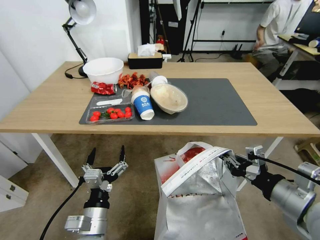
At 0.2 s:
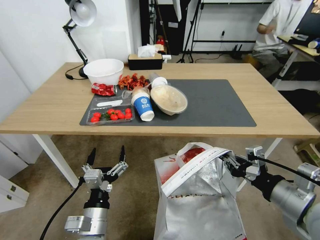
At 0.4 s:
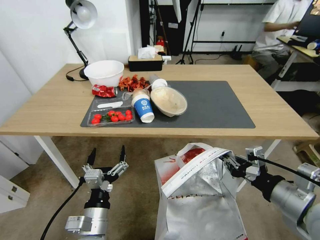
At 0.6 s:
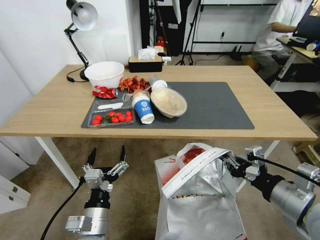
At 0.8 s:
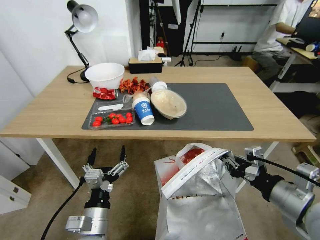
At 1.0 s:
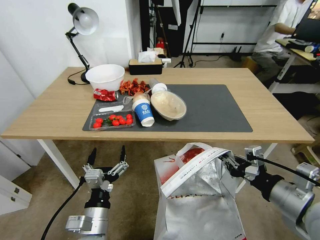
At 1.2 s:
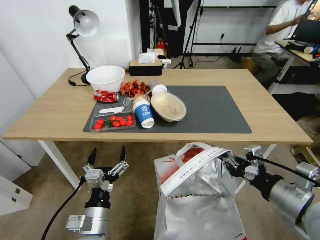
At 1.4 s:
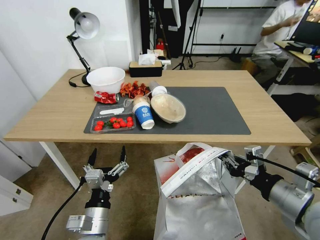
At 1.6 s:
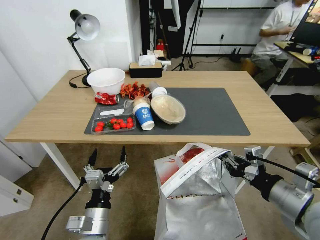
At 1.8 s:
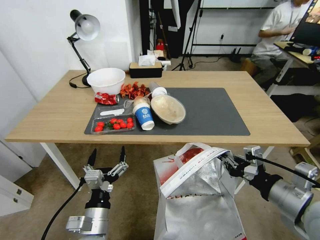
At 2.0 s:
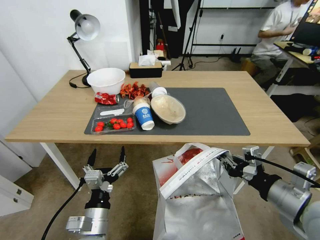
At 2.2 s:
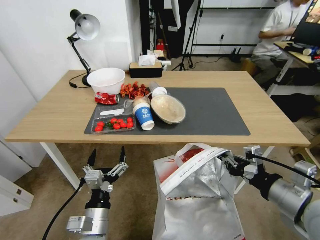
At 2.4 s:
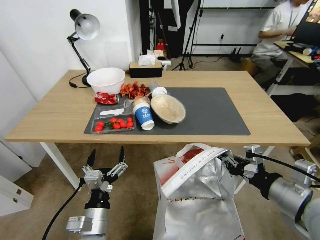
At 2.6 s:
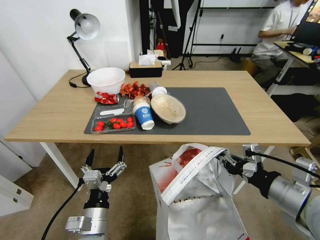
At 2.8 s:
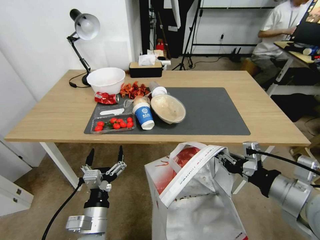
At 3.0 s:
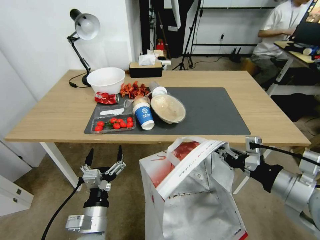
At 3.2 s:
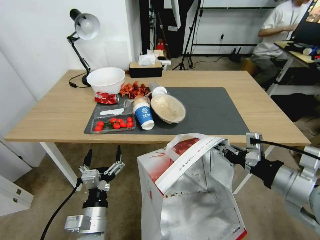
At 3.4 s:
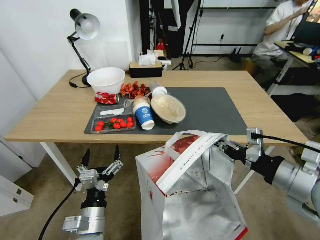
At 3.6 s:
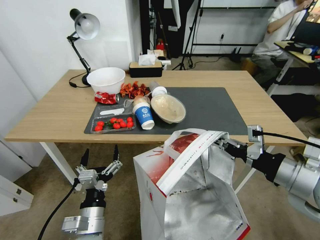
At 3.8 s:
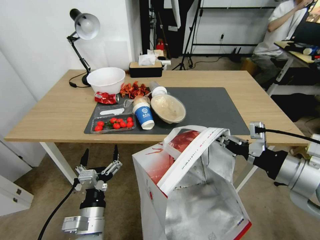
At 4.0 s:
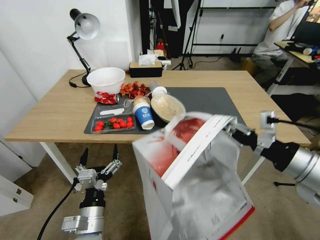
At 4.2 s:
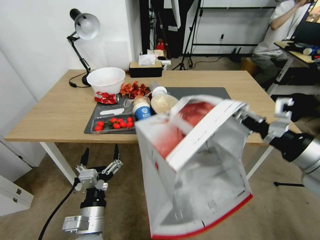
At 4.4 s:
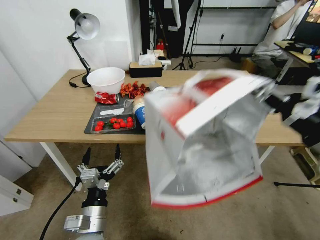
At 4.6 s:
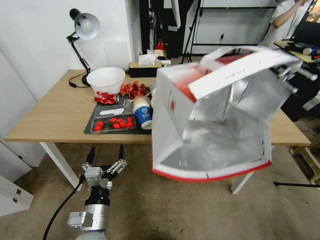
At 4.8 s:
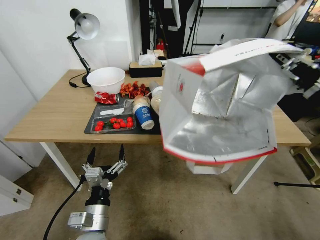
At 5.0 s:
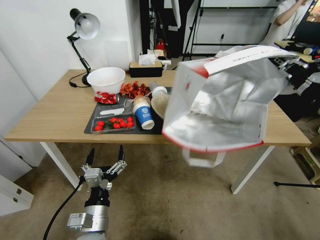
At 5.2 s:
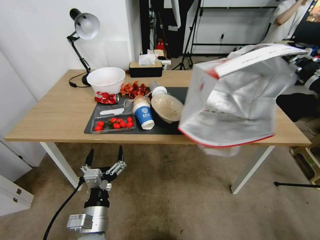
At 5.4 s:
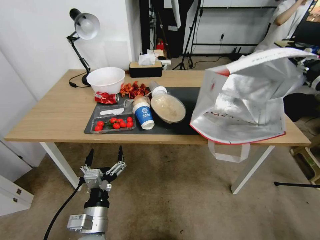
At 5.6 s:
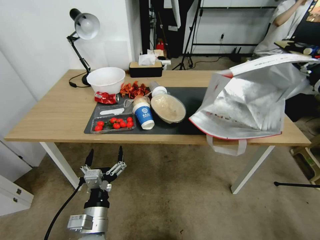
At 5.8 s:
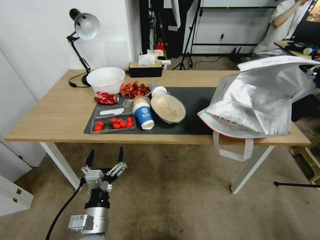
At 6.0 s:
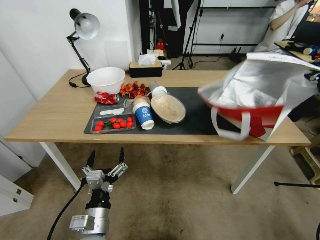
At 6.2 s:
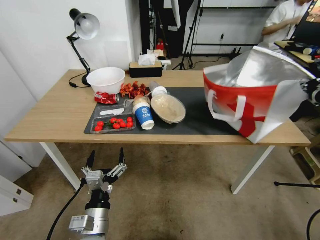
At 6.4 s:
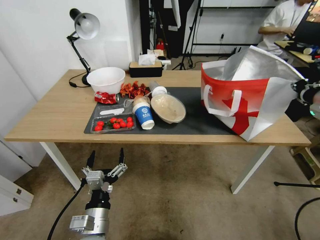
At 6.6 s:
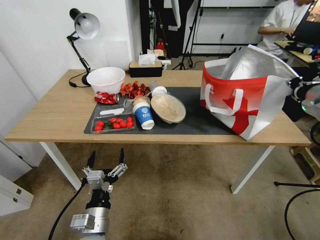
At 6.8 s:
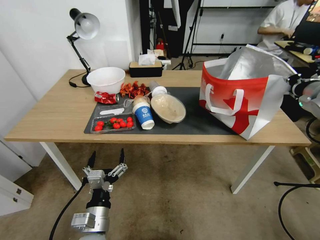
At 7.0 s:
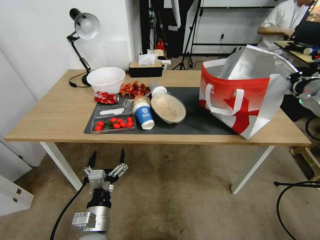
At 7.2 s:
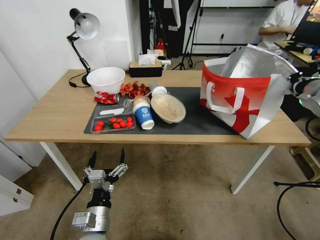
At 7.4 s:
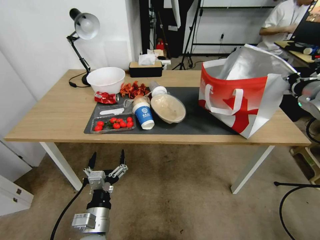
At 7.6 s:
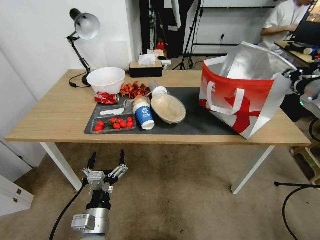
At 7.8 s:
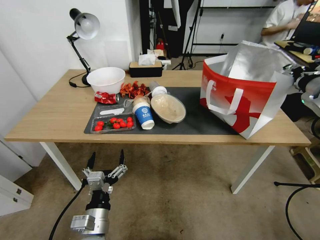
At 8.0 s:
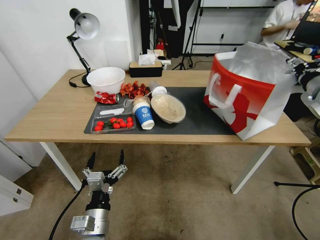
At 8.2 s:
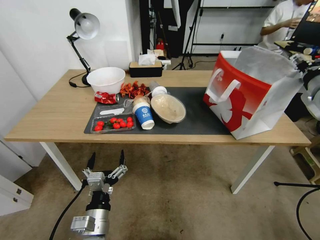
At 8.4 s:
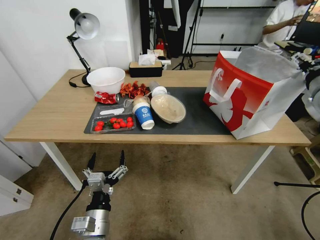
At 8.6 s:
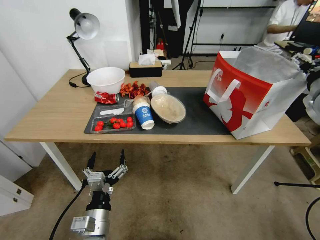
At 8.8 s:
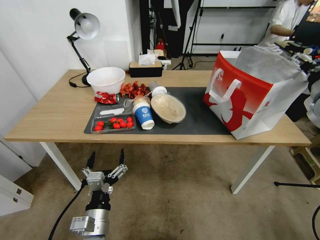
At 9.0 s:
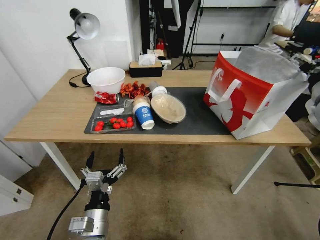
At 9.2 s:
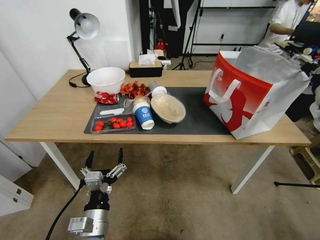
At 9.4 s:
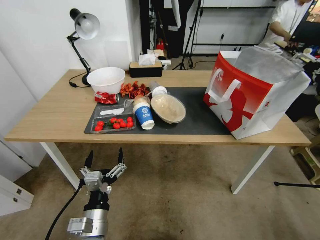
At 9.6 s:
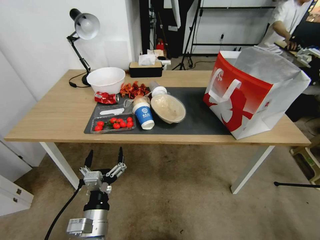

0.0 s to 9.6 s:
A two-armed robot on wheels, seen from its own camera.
Task of the whole recording: Pick up the food delivery bag from the floor and place it on the table.
1.6 to 3.2 s: There are only small adjustments of the grippers.
3.2 to 4.8 s: The right gripper heads upward, covering approximately 10 cm.
4.8 to 6.4 s: The right gripper goes roughly 15 cm forward and to the right.
6.4 to 8.0 s: The right gripper opens up.
8.0 to 9.6 s: The right gripper shifts roughly 5 cm backward.

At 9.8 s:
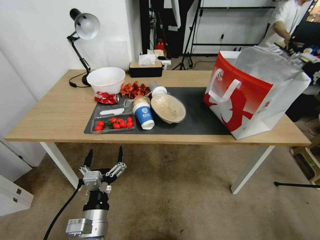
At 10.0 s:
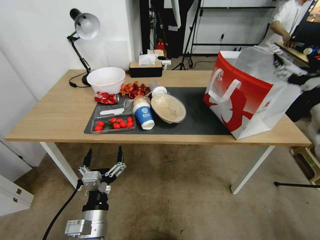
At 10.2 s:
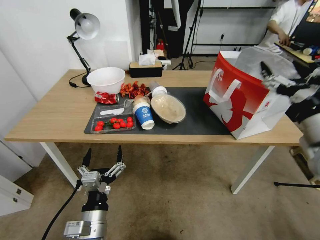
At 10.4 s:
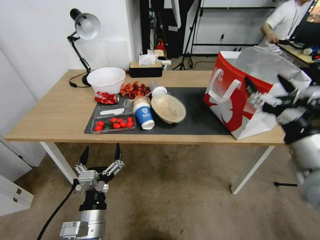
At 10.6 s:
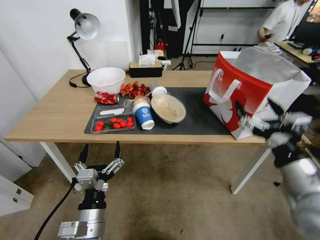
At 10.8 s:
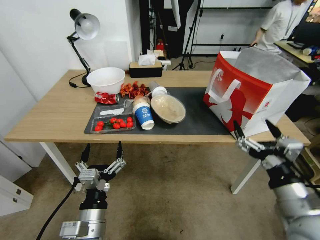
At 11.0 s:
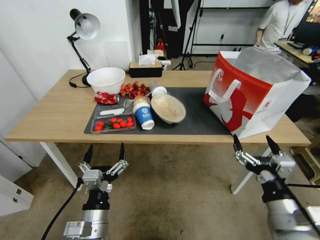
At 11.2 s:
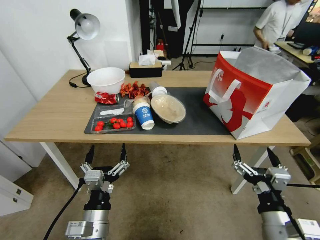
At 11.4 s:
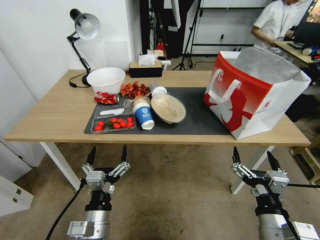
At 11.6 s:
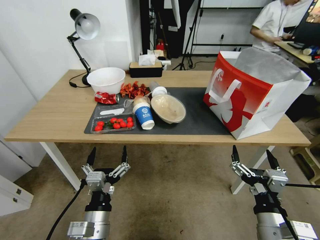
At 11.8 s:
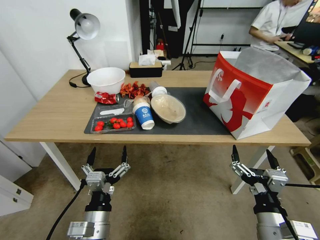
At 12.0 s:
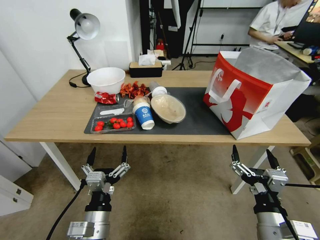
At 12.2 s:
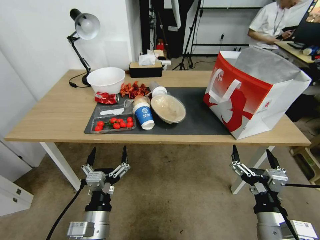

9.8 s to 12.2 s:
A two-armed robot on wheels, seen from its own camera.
Task of the whole recording: Pick up the food delivery bag from the floor and place it on the table.
9.8 to 11.0 s: The right gripper heads backward, downward and to the left, covering approximately 30 cm.
11.0 to 12.2 s: There are only small adjustments of the grippers.

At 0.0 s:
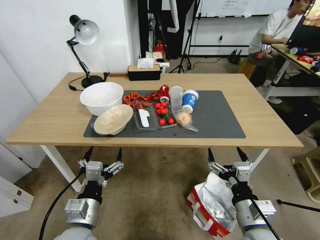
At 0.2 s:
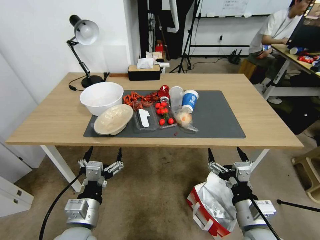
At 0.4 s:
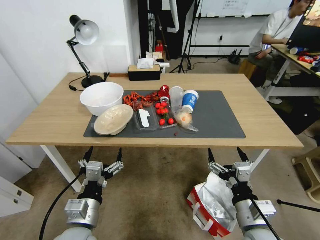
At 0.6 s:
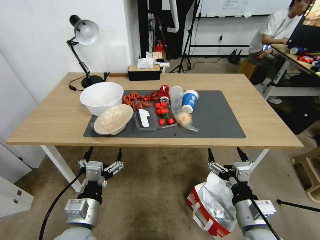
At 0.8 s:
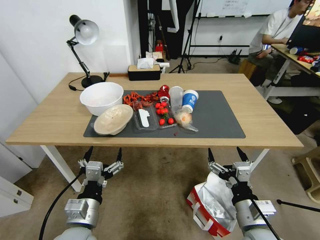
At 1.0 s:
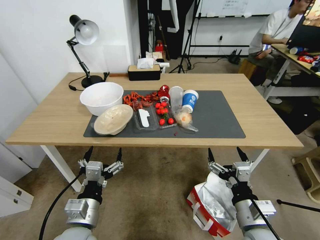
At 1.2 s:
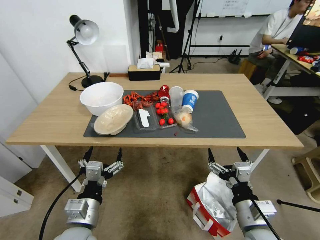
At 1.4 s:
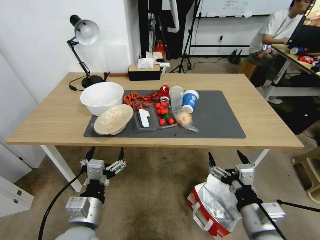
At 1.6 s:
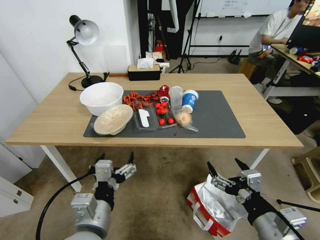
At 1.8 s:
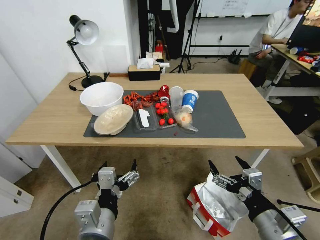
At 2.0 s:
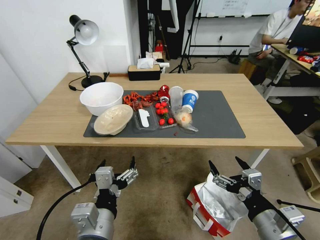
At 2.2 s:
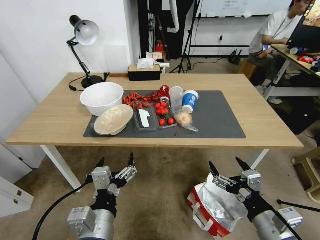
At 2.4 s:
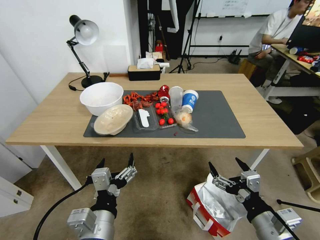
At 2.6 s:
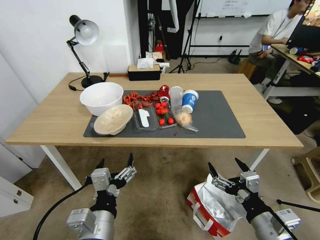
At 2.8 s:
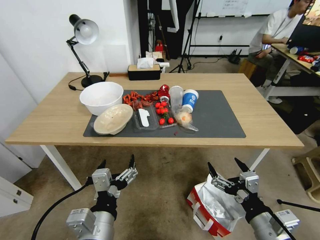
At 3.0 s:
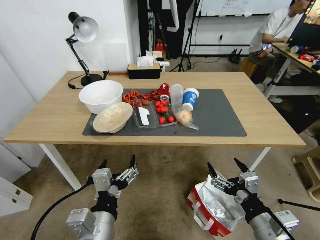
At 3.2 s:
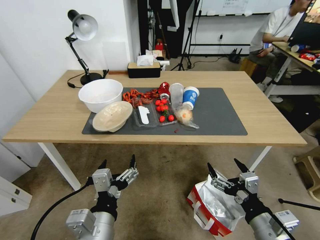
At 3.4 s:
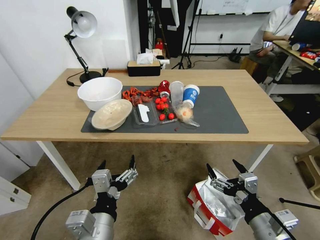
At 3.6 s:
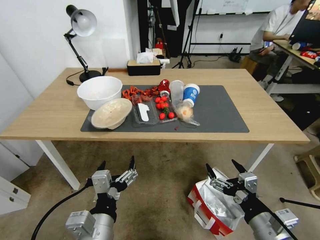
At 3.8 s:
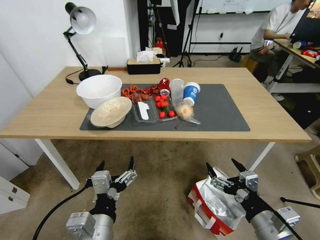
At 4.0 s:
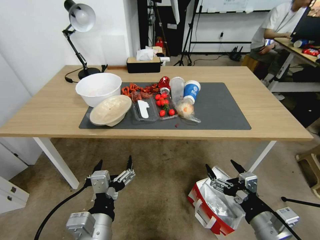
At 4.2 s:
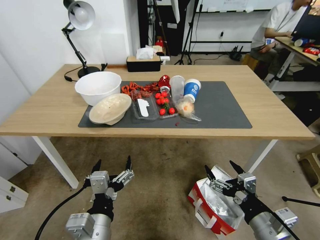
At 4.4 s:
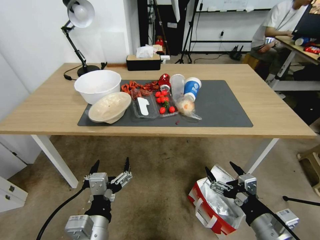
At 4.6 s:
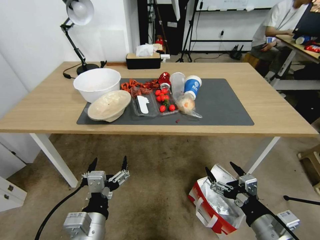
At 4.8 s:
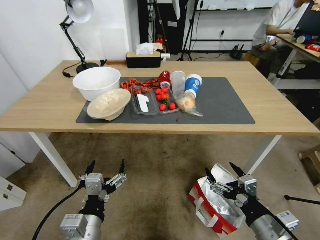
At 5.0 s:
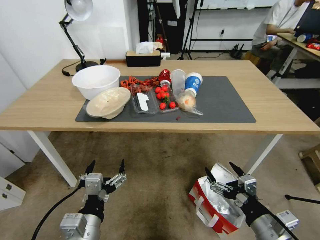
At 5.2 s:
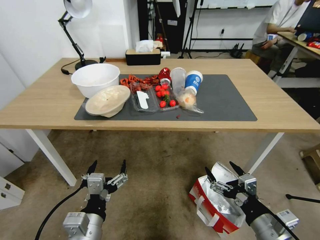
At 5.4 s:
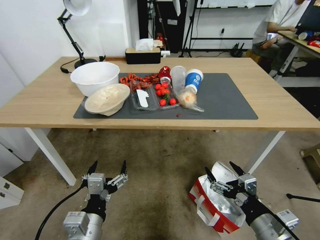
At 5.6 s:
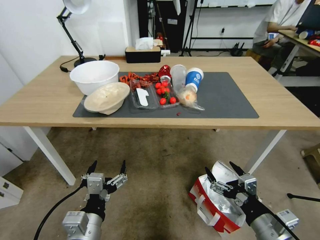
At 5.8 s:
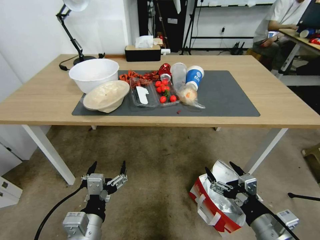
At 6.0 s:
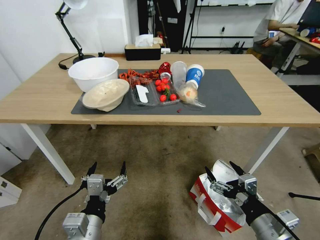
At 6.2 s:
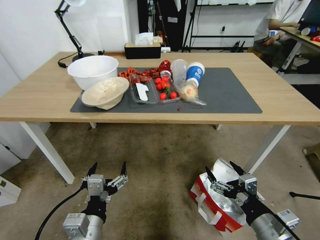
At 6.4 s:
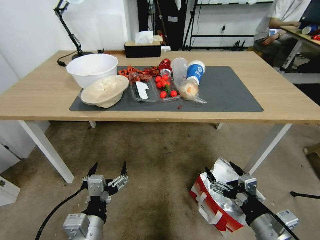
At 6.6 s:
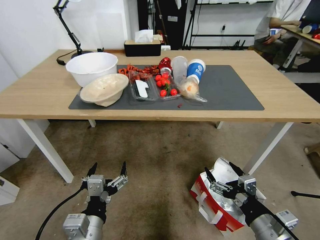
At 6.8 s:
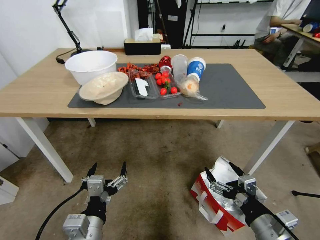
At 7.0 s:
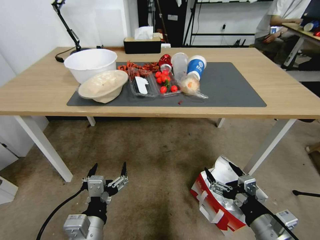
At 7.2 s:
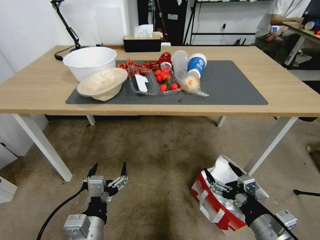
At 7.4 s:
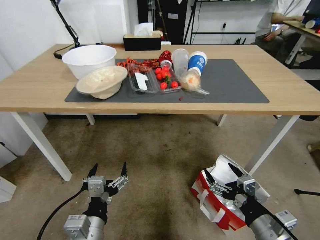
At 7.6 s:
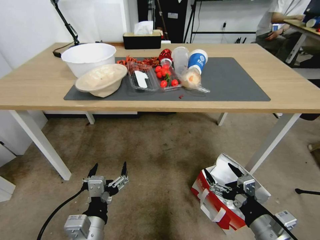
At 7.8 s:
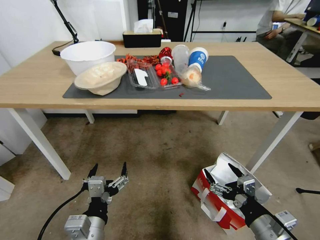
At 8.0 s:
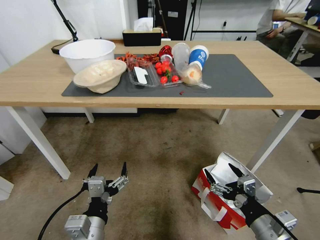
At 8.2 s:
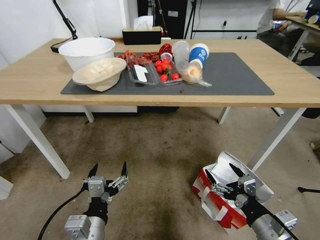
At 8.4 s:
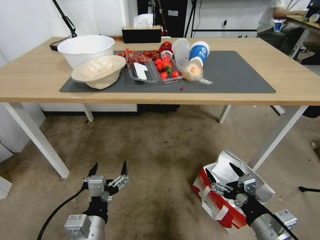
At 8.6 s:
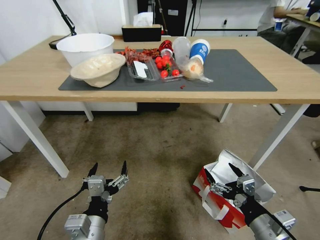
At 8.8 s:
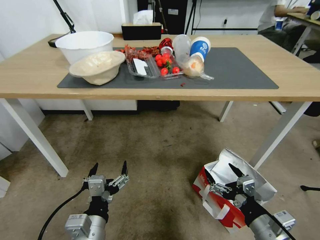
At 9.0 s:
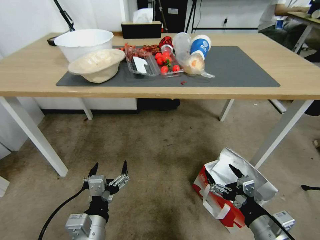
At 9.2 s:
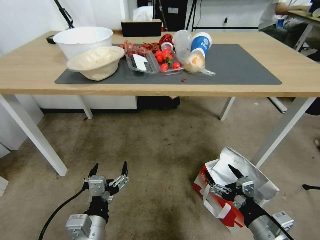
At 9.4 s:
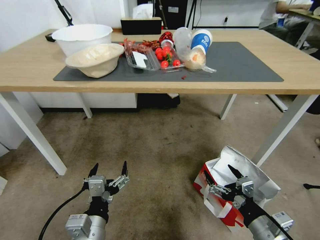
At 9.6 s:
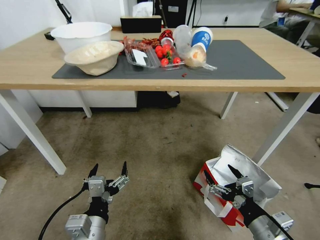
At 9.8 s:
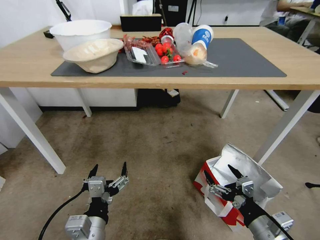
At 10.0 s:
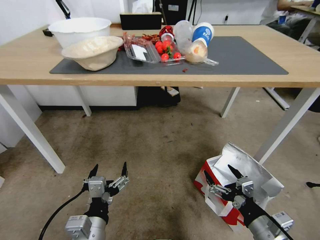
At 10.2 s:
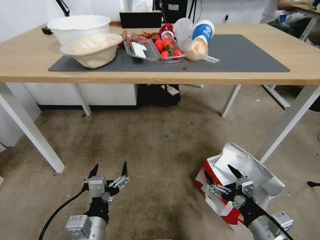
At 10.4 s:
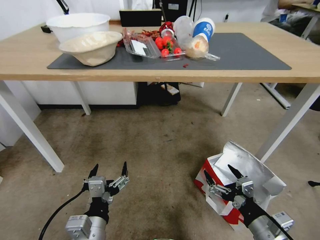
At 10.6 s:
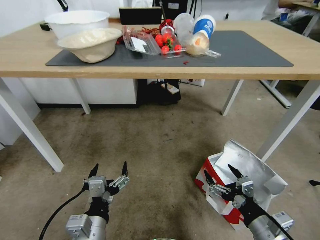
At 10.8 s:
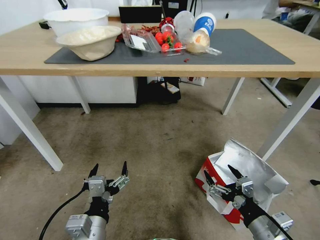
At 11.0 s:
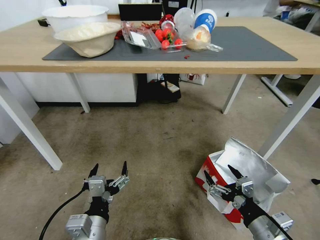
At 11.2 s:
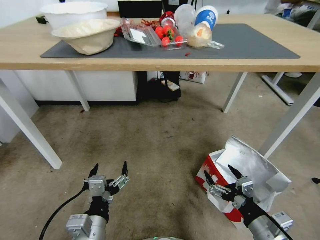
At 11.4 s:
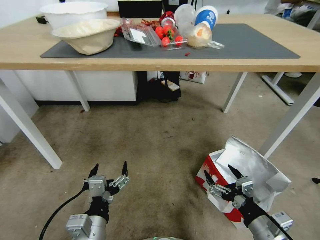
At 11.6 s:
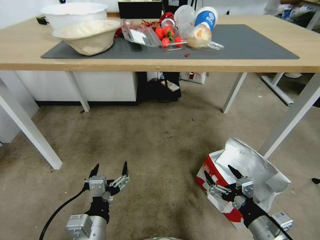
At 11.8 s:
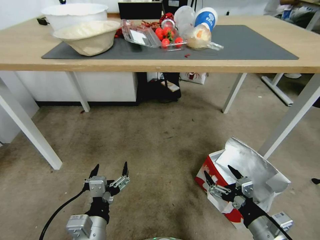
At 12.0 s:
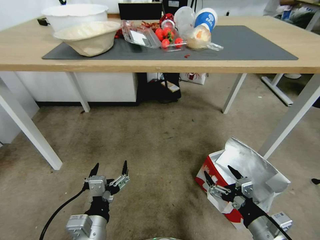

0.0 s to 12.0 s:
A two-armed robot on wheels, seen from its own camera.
Task of the whole recording: Pick up the food delivery bag from the floor and place it on the table.
1.6 to 3.0 s: There are only small adjustments of the grippers.
